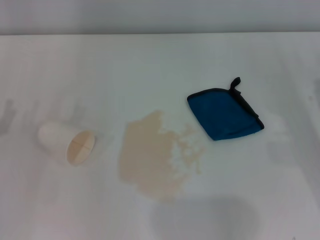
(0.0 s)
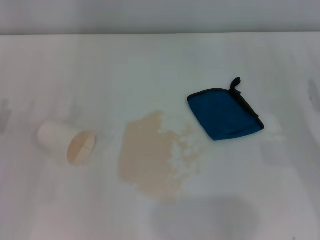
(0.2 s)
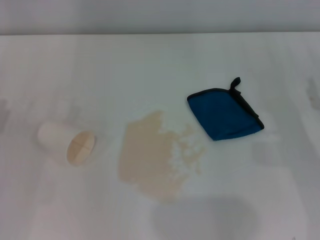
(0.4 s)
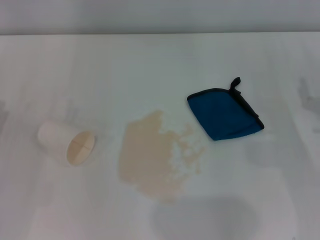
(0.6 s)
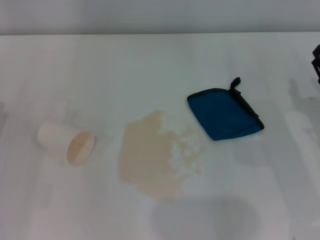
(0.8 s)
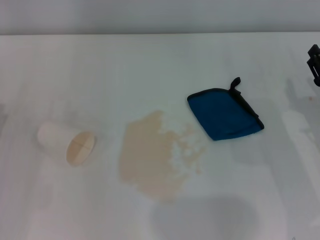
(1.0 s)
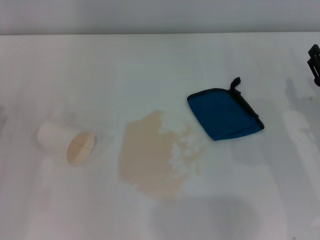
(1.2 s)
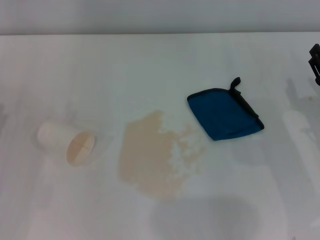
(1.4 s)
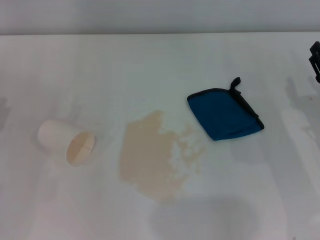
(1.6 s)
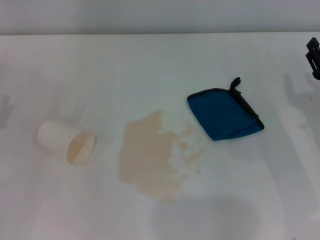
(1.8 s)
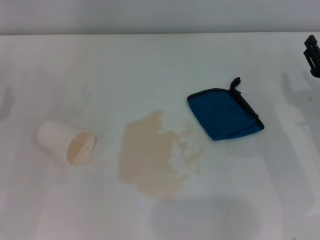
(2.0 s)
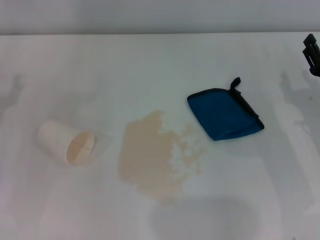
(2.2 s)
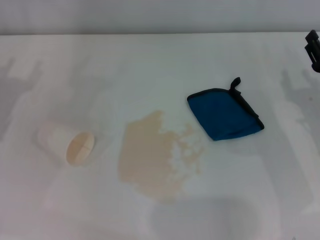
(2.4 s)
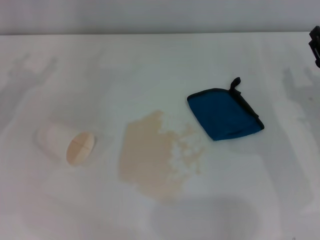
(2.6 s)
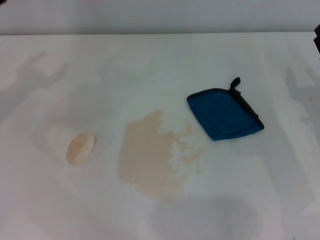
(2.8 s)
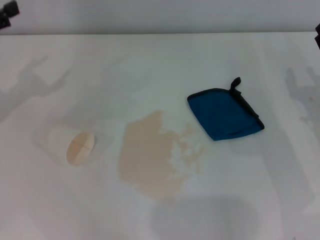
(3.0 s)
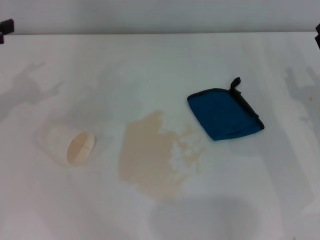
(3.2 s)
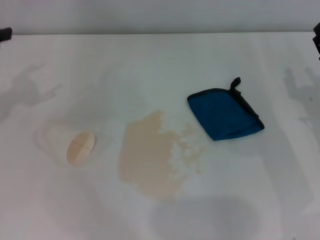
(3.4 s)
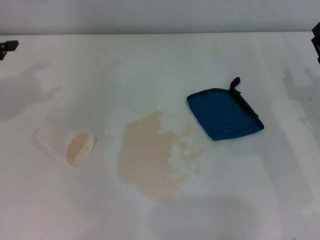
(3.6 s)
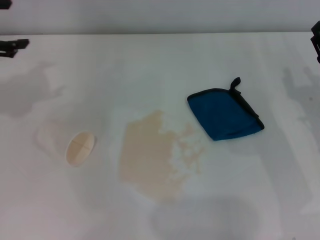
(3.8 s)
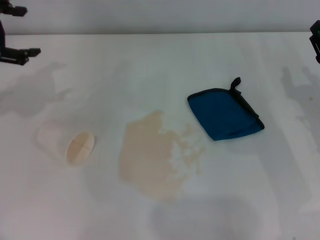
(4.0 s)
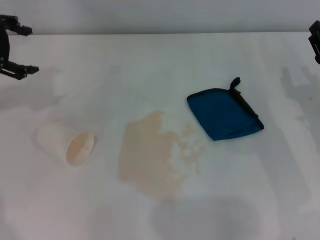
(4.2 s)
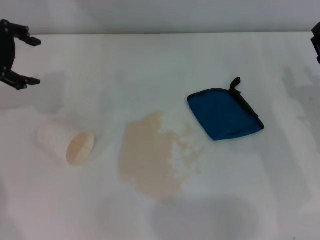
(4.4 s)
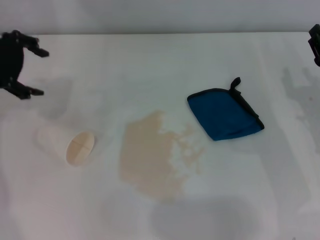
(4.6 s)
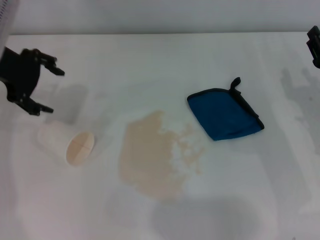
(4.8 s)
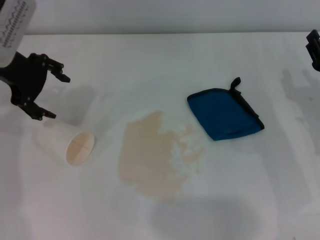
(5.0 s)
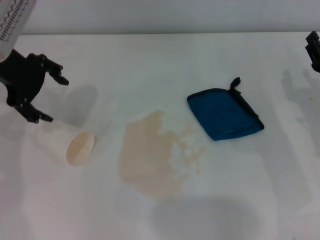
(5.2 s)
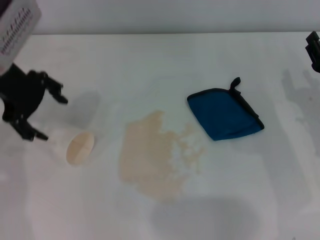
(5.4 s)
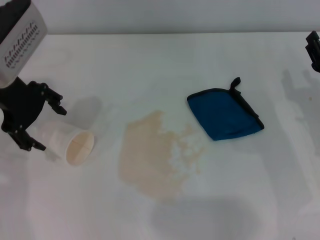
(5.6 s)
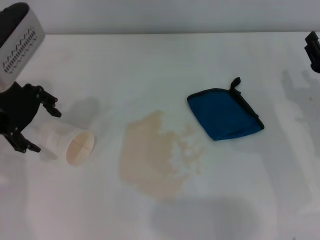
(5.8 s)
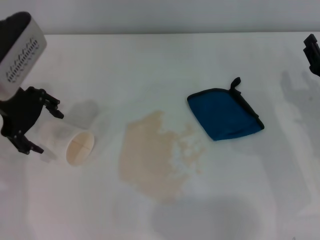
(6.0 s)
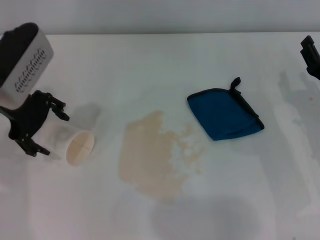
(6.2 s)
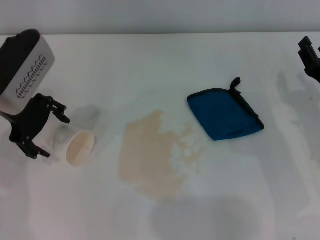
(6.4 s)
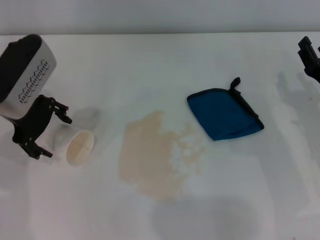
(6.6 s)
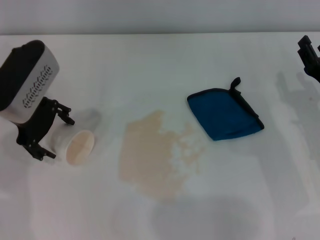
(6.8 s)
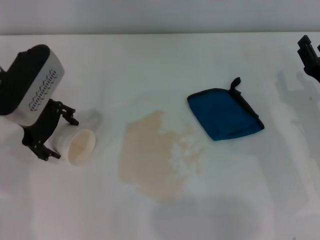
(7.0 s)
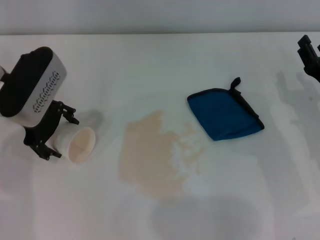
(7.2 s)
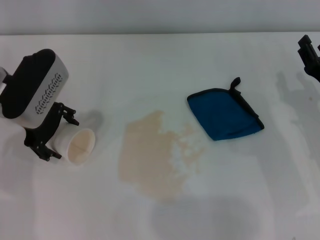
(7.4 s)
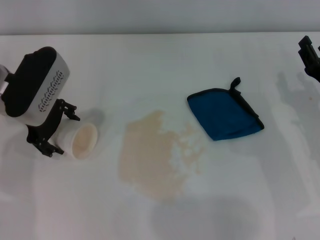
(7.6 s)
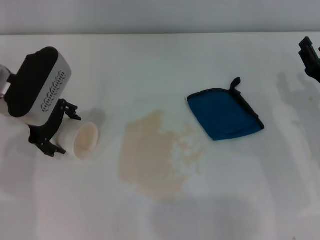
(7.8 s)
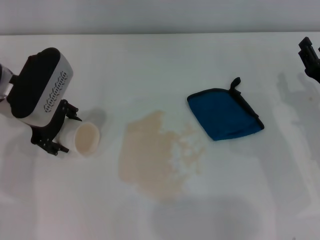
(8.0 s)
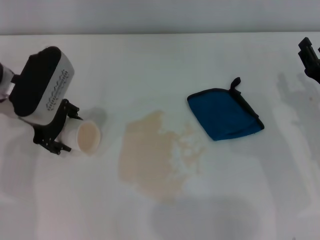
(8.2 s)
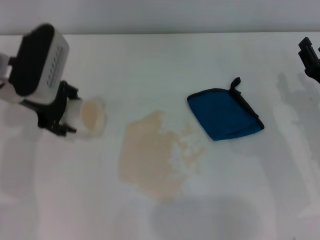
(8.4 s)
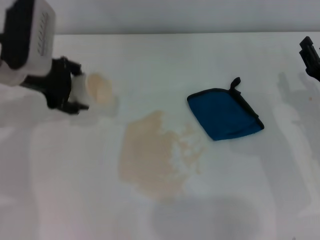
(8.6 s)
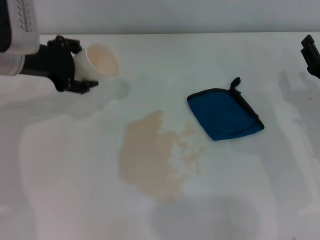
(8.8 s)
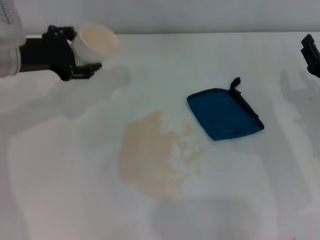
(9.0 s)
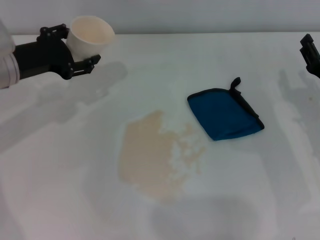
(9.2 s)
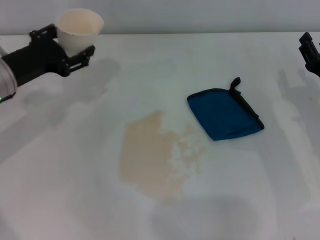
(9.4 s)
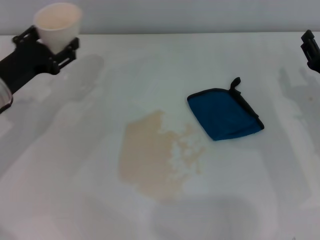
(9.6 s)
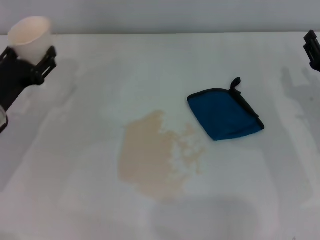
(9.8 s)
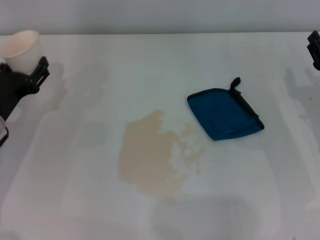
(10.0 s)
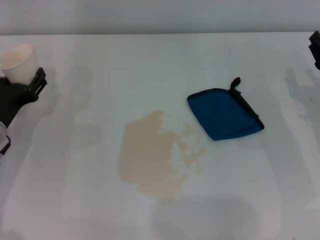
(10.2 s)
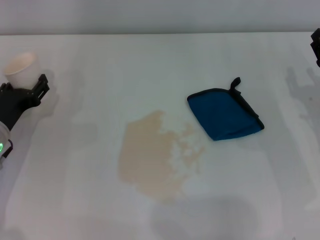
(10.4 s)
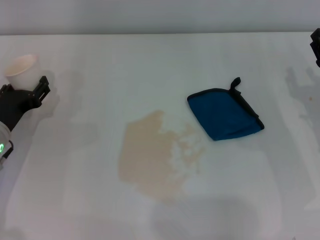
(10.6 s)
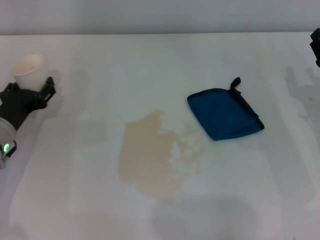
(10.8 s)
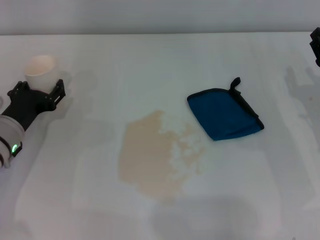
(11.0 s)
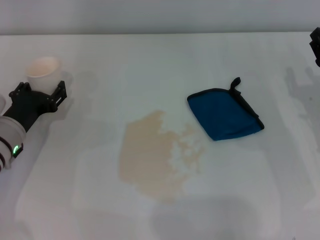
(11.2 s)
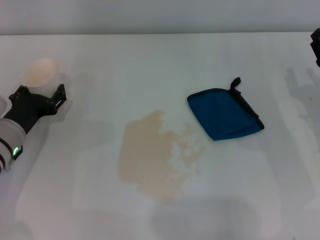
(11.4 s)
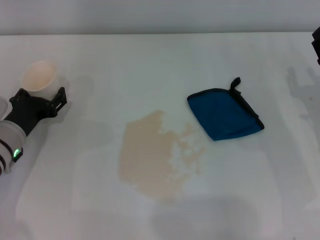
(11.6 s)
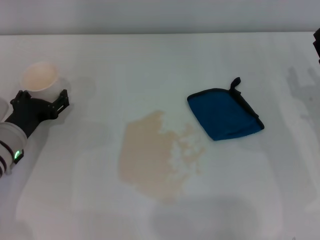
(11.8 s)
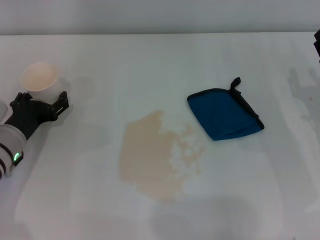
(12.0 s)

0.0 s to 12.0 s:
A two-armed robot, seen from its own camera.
Step, 0.0 to 8.0 s: Grasp the paper cup with the left gripper.
Step, 8.2 to 11.8 s: Stand the paper cup upright with the left gripper.
3.0 to 4.4 s: The left gripper shifts roughly 10 cm forward and to the right.
4.4 to 6.0 s: The left gripper heads to the right, covering approximately 5 cm.
6.0 to 7.6 s: The left gripper heads downward, covering some 5 cm.
7.6 to 9.0 s: The left gripper closes its fingers.
9.0 to 10.4 s: The left gripper is displaced downward and backward by approximately 15 cm.
10.4 to 12.0 s: The left gripper opens.

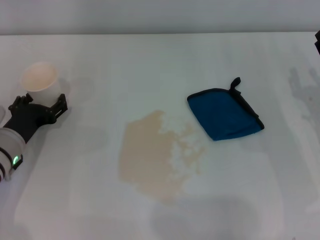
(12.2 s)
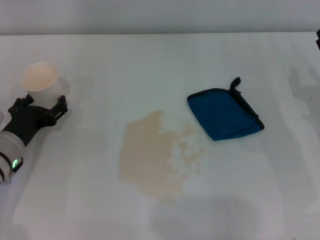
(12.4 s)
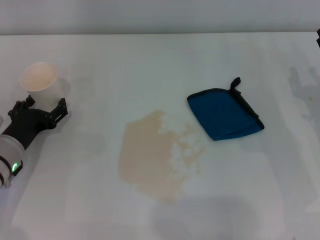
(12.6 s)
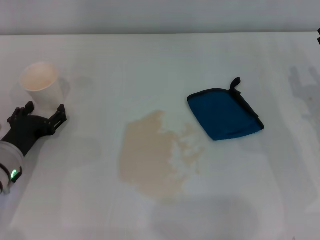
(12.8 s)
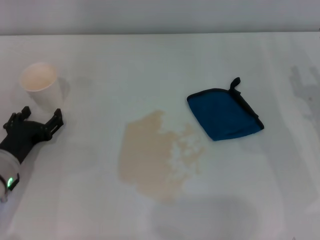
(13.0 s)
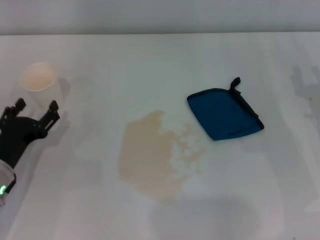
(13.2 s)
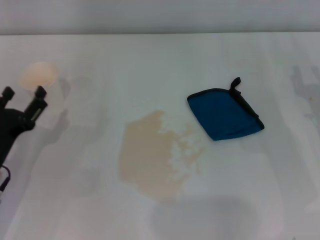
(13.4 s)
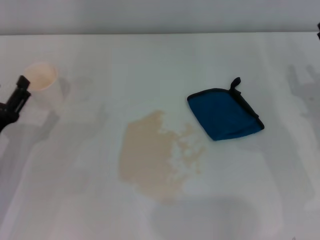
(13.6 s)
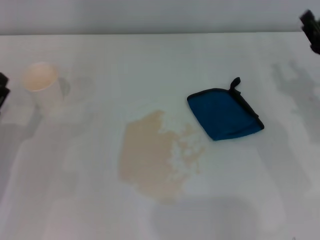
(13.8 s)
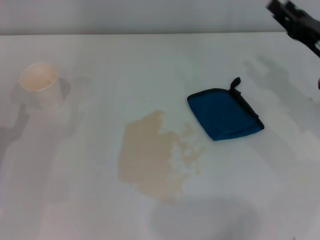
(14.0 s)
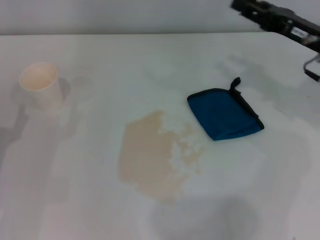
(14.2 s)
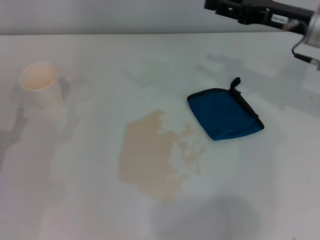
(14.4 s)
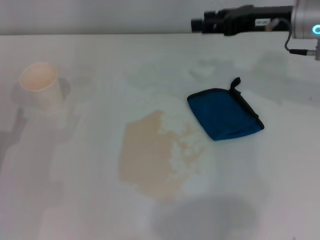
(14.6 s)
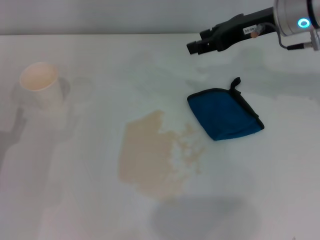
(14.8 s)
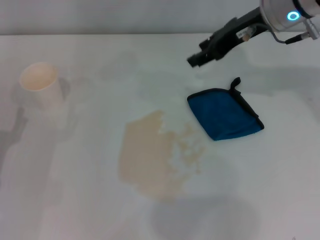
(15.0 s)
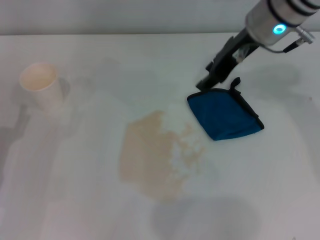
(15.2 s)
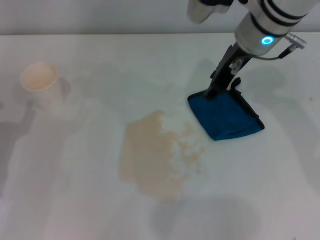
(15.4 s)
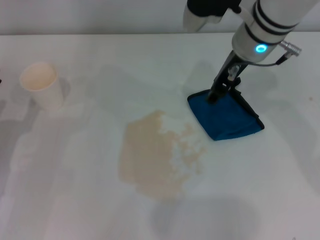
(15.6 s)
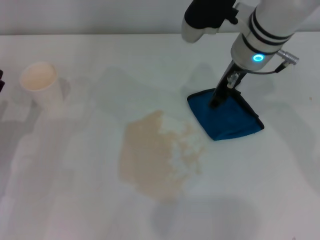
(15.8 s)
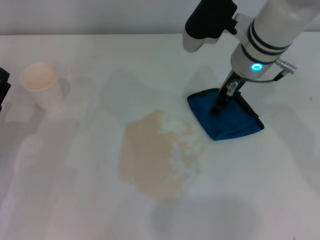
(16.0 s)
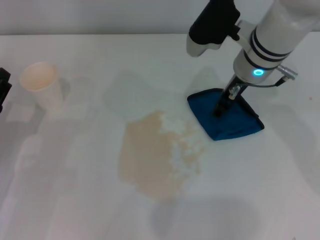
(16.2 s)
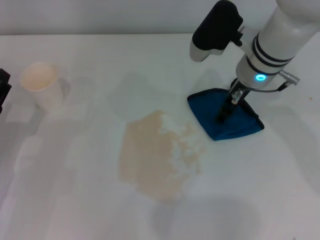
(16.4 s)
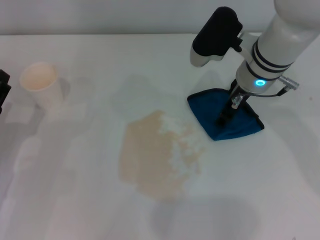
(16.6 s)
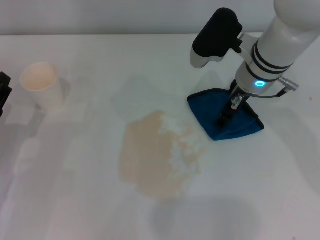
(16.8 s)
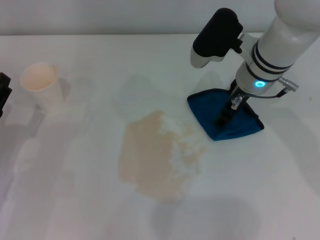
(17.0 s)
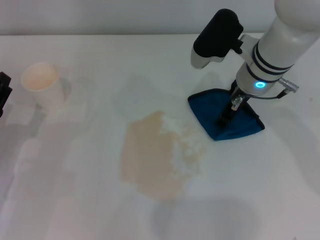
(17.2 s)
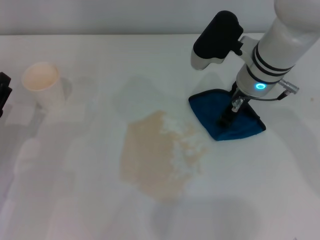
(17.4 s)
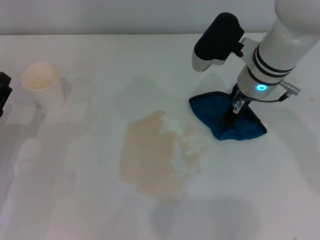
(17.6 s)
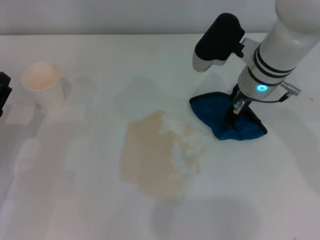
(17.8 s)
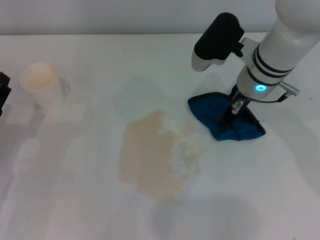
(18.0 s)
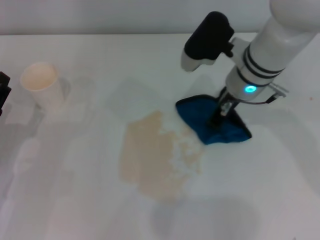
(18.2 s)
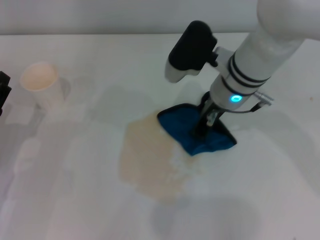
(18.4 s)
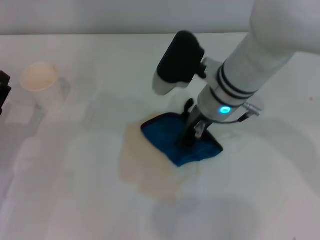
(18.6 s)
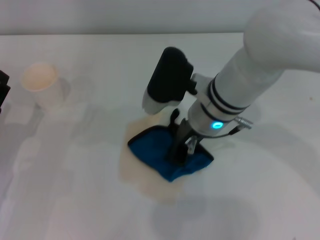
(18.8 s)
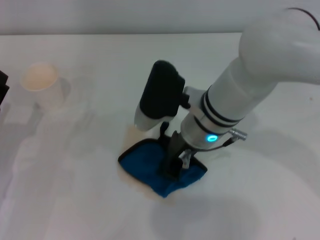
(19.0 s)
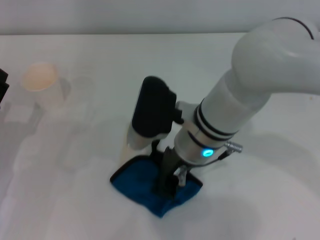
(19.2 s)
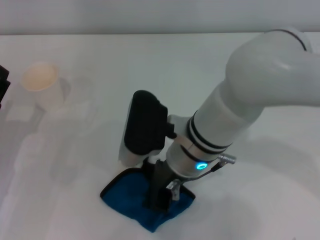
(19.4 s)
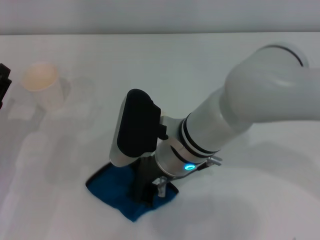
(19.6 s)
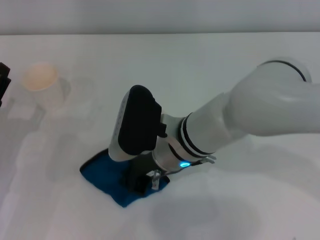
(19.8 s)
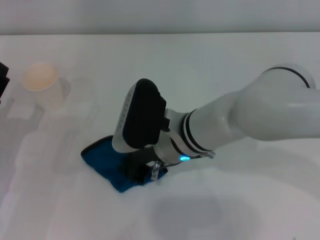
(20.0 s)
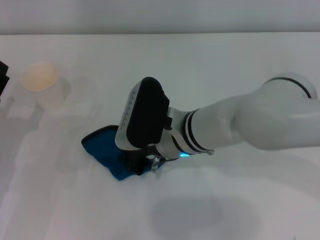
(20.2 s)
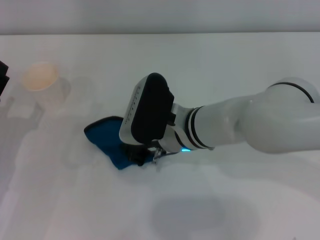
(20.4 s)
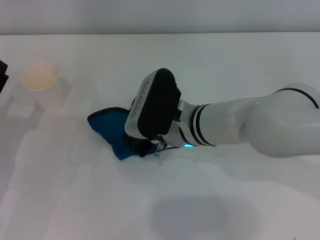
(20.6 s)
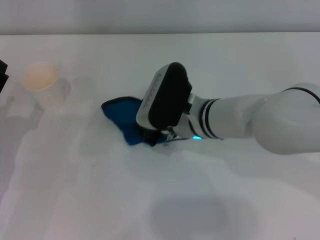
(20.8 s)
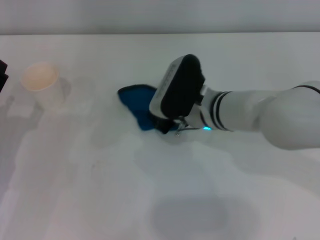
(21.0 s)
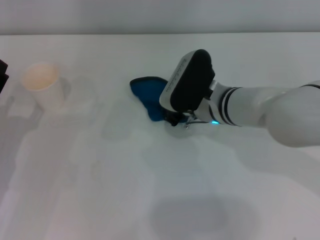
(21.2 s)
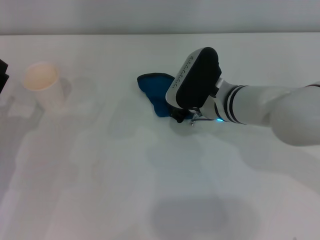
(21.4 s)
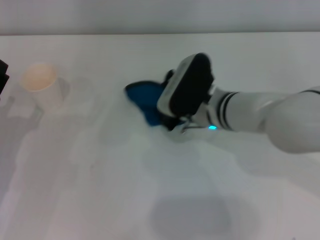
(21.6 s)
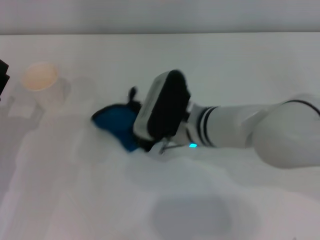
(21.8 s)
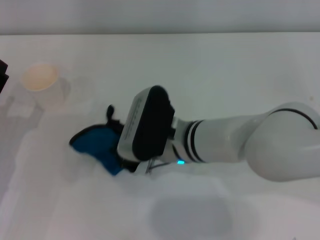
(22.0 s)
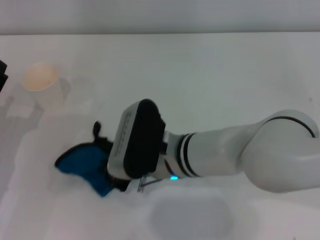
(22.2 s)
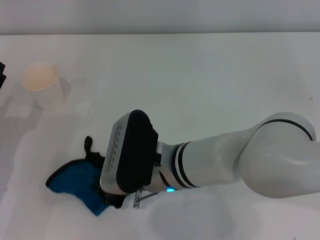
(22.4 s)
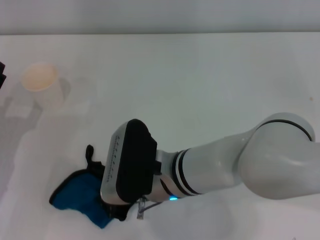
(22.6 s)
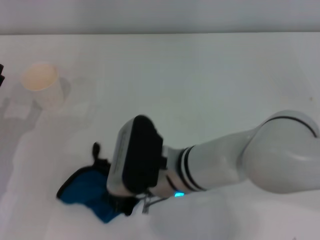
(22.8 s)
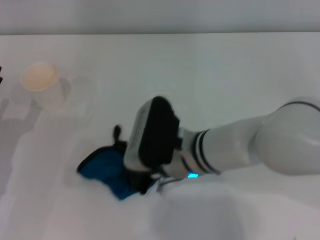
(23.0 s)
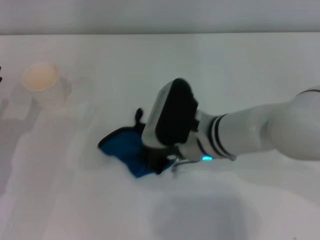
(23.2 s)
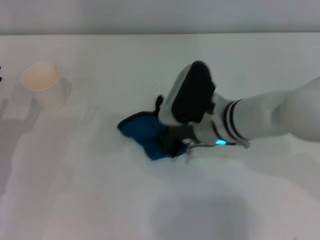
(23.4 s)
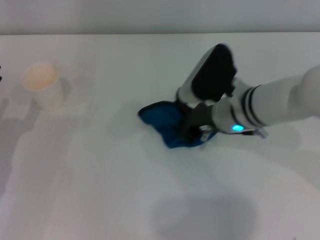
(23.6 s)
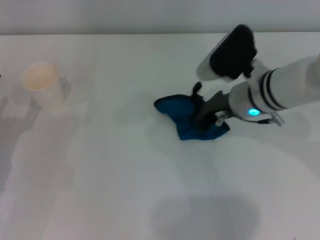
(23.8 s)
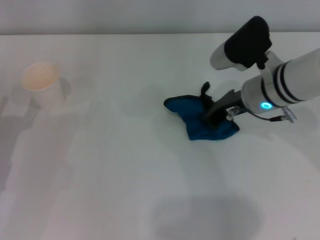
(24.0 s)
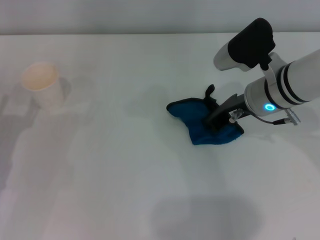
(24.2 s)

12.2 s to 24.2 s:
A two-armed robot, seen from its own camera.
Step, 12.2 to 17.8 s: Grasp the rag with the right gripper.
12.2 to 13.8 s: The left gripper moves backward, approximately 5 cm.
13.8 to 15.2 s: The right gripper moves to the left, upward and forward, roughly 25 cm.
15.2 to 16.6 s: The right gripper shifts roughly 10 cm downward.
16.6 to 18.2 s: The right gripper closes its fingers.
18.2 to 19.8 s: The right gripper heads backward and to the left, covering about 15 cm.
19.8 to 21.2 s: The right gripper heads to the right and forward, covering about 10 cm.
21.2 to 22.6 s: The right gripper shifts approximately 15 cm backward and to the left.
22.6 to 24.2 s: The right gripper moves to the right and forward, approximately 20 cm.
